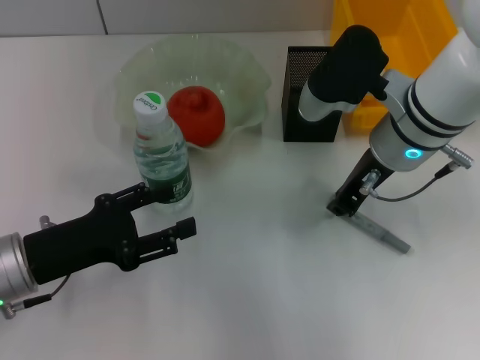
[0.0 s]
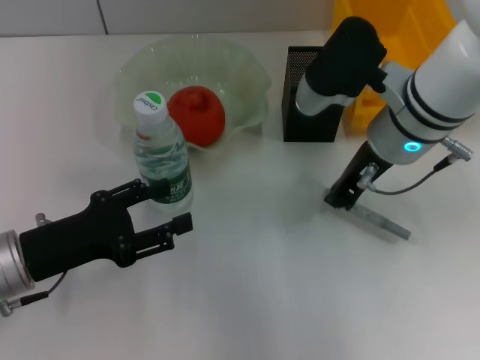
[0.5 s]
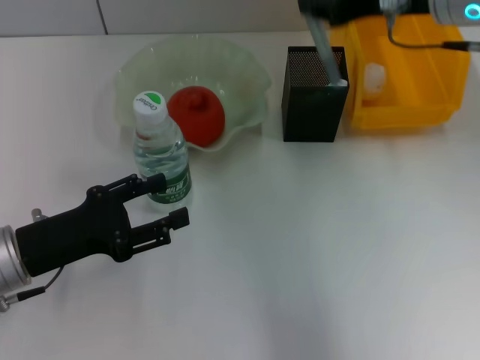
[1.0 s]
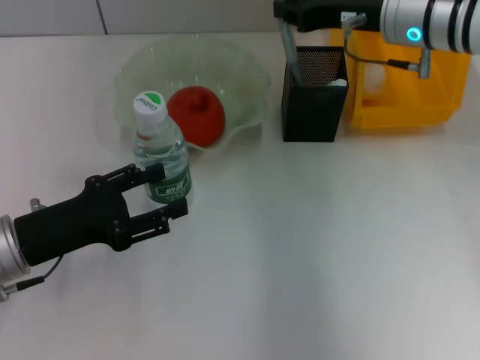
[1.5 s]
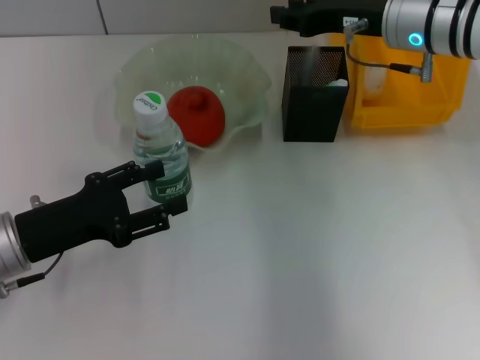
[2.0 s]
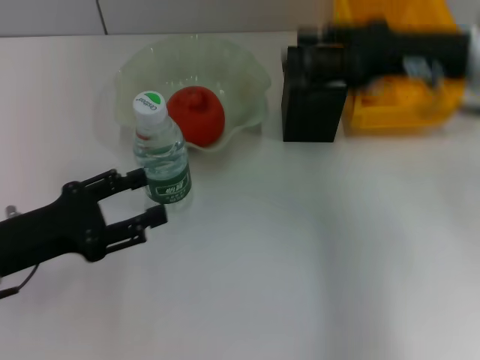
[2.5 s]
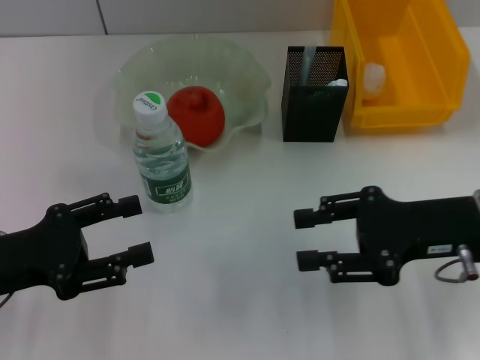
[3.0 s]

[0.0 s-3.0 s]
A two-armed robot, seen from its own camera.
Step, 0.5 to 2.0 s: Place the gray glue into the pen holder with the right hand.
0.0 to 1.5 s: The right gripper heads forward, covering some 5 cm, and travels upward and back again, some 10 cm each way.
1.5 to 3.0 s: The right gripper travels backward by approximately 15 cm, and opens.

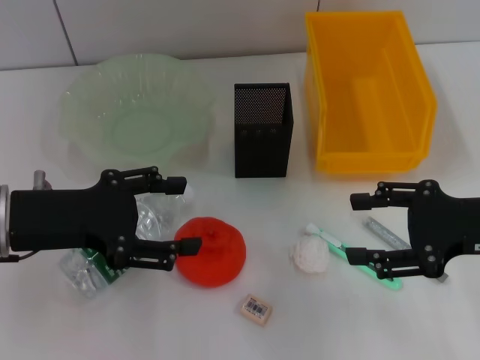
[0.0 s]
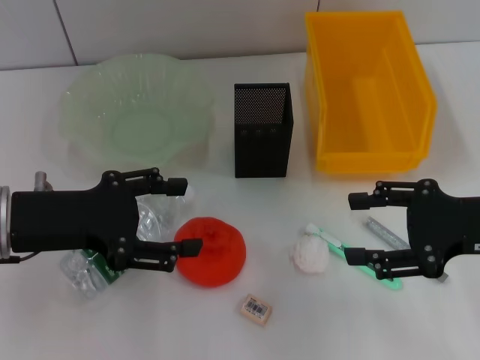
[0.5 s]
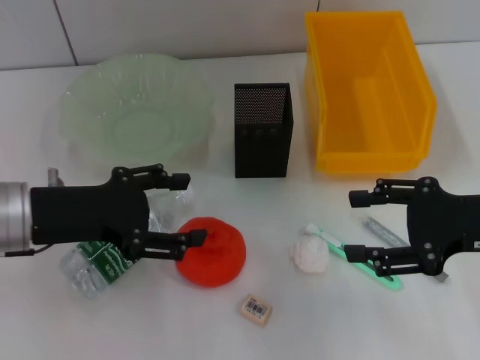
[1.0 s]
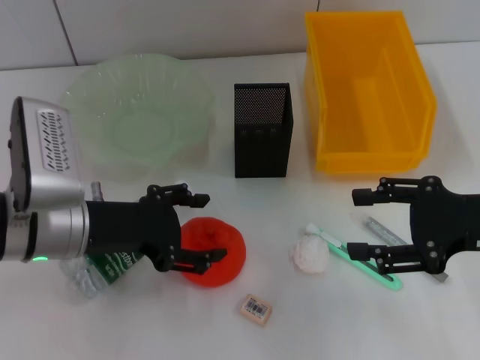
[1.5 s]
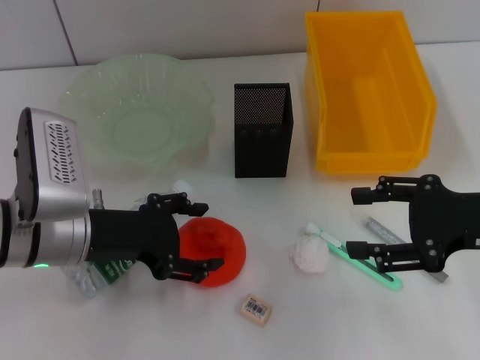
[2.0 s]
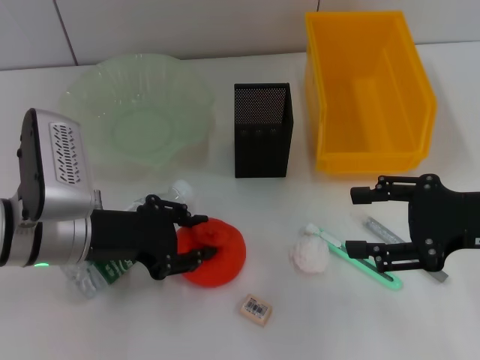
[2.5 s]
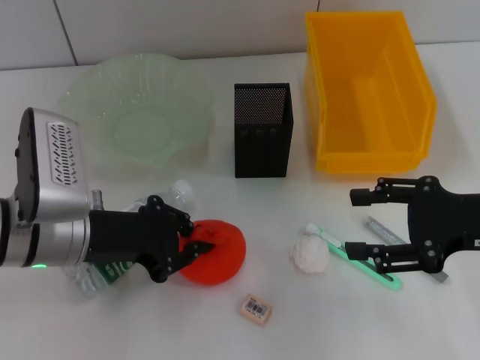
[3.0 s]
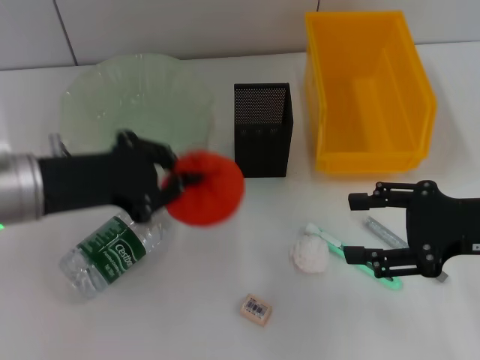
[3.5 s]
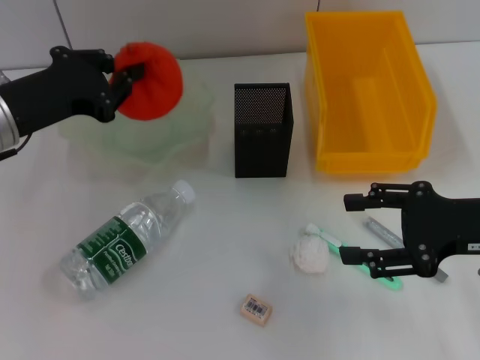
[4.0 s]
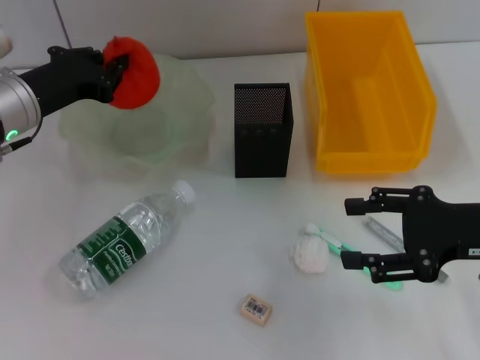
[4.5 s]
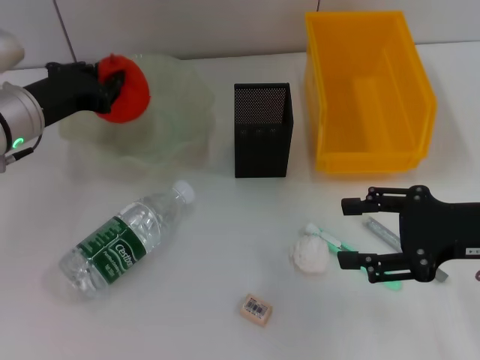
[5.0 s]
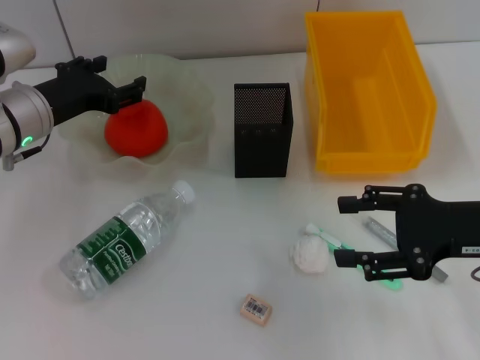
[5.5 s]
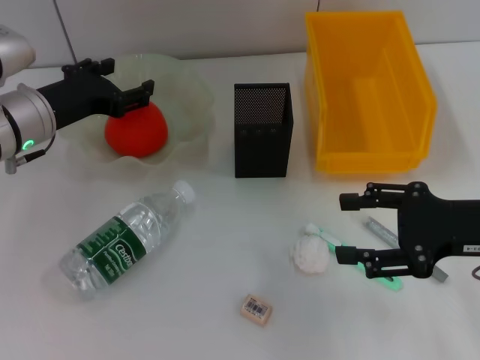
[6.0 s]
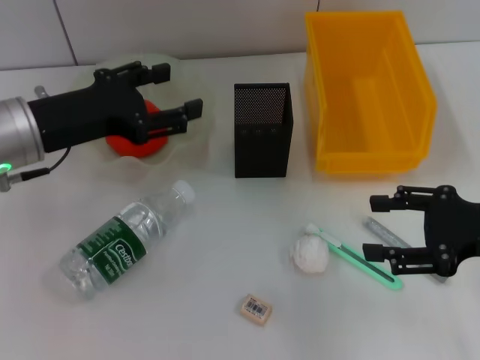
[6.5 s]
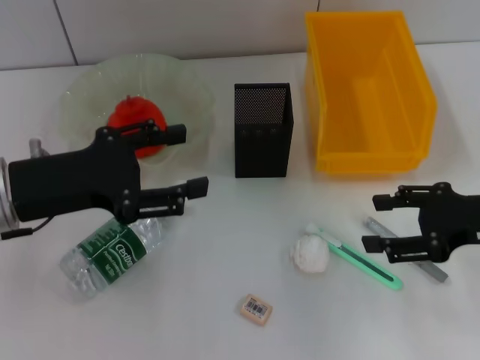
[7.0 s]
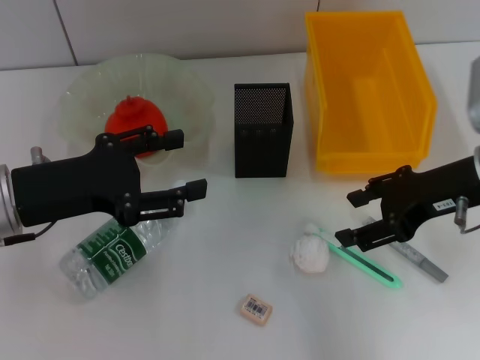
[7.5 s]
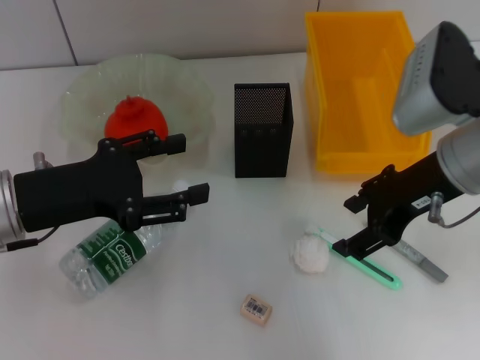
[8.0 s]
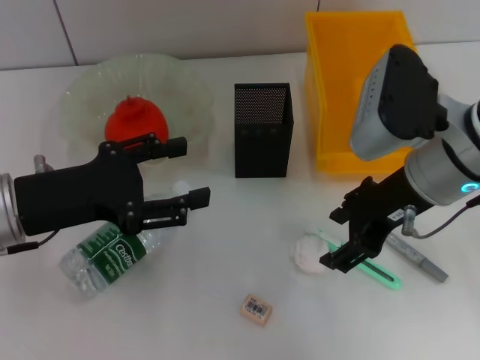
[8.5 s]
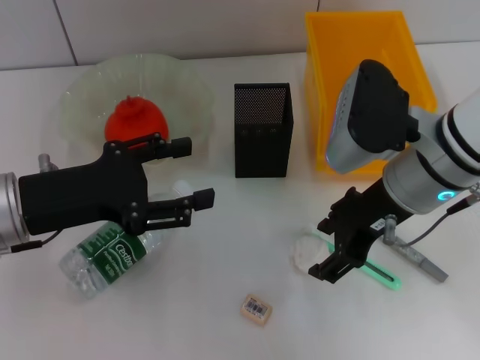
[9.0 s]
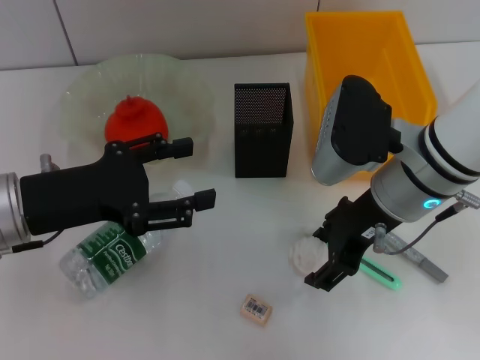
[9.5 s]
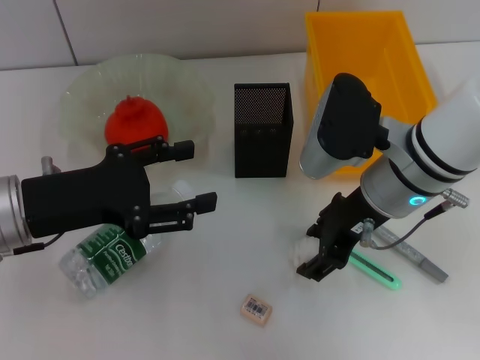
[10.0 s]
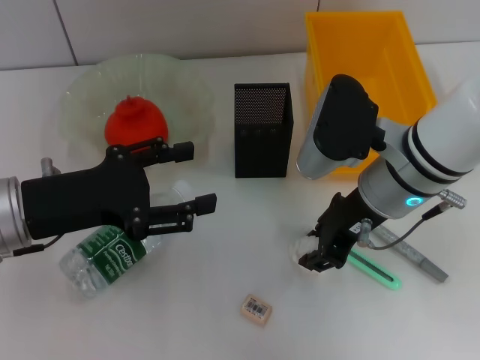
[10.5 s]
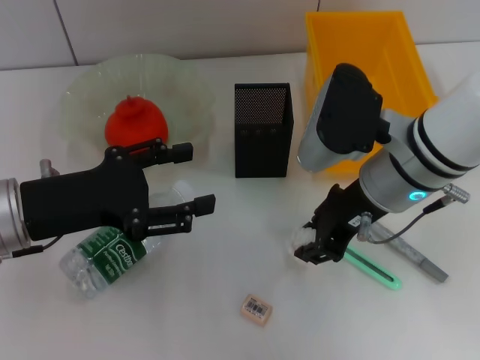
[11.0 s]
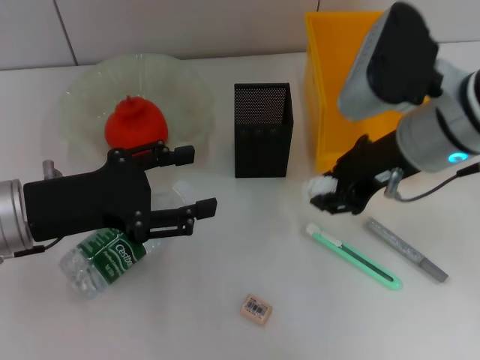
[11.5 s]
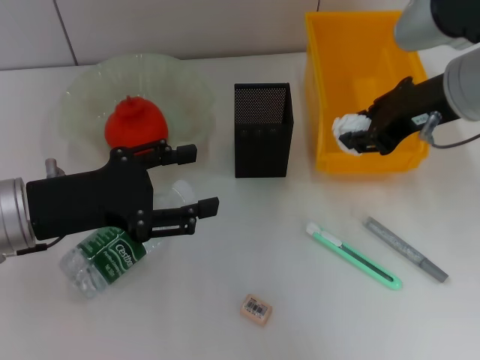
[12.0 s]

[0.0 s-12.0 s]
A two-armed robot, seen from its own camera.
Step, 0.0 to 2.5 s: Grab the orange with the left hand.
Step, 3.0 to 5.0 s: Place the orange into the fruit bowl with the left hand.
Step, 6.0 to 11.0 s: Grab the paper ball with the right hand.
0.0 to 2.0 s: The left gripper moves some 5 cm.
2.0 to 4.0 s: The left gripper moves upward, approximately 5 cm, and closes.
4.0 to 6.0 s: The left gripper ends up about 5 cm from where it was, and opens up.
6.0 to 8.0 s: The left gripper moves backward, approximately 10 cm, while the right gripper is displaced to the left, forward and upward by roughly 10 cm.
8.0 to 10.0 s: The right gripper is displaced to the left by approximately 5 cm.
10.0 to 12.0 s: The right gripper is displaced upward and to the right by roughly 10 cm, and closes up.

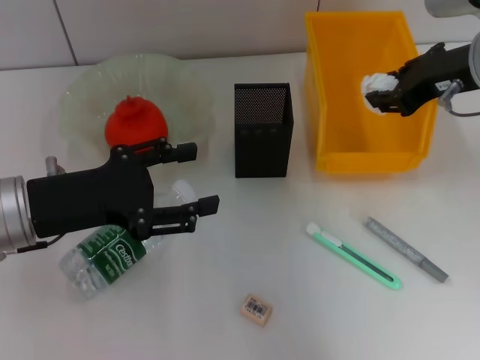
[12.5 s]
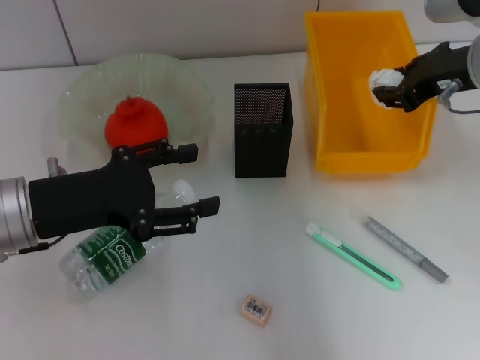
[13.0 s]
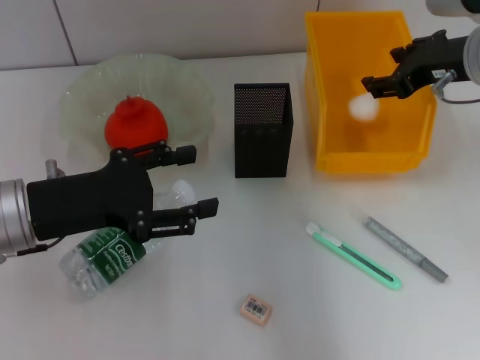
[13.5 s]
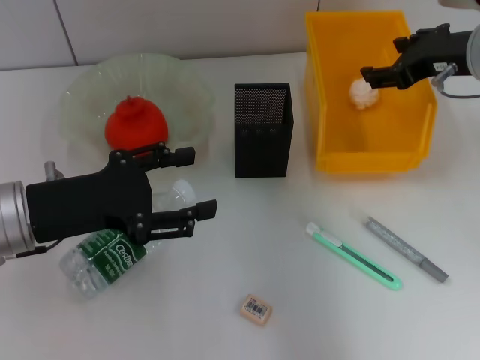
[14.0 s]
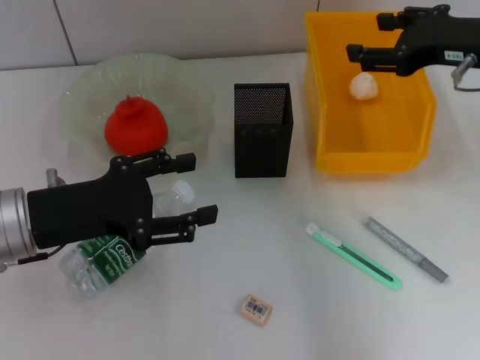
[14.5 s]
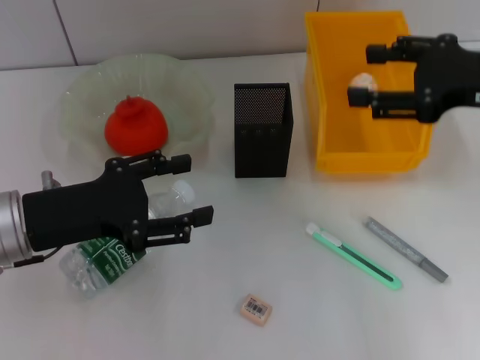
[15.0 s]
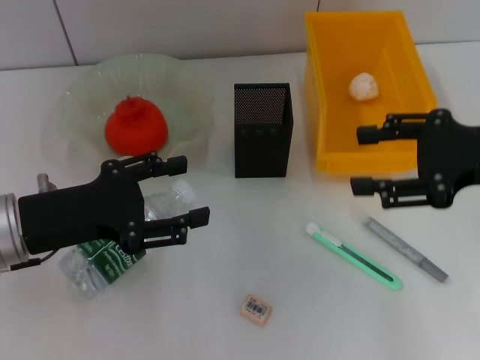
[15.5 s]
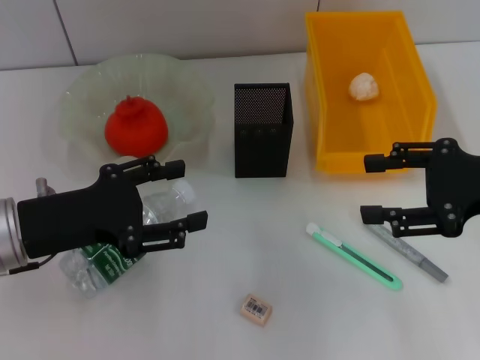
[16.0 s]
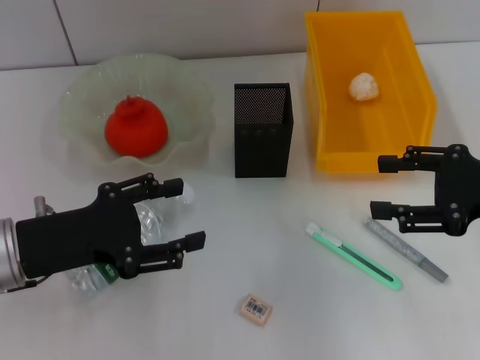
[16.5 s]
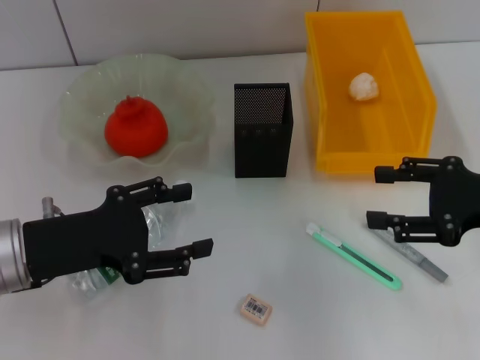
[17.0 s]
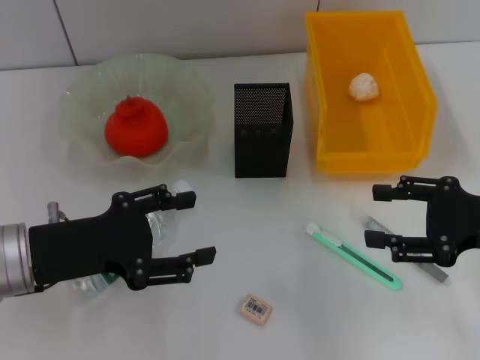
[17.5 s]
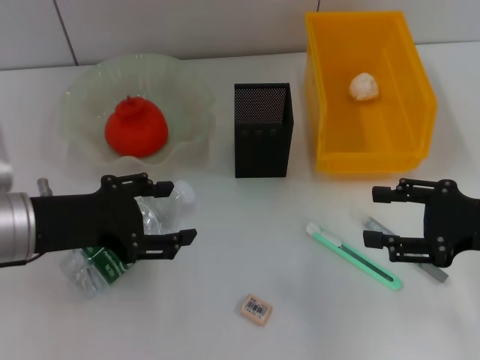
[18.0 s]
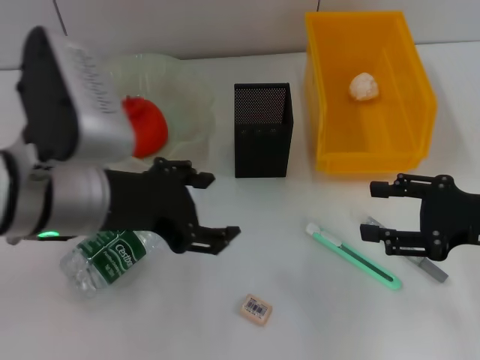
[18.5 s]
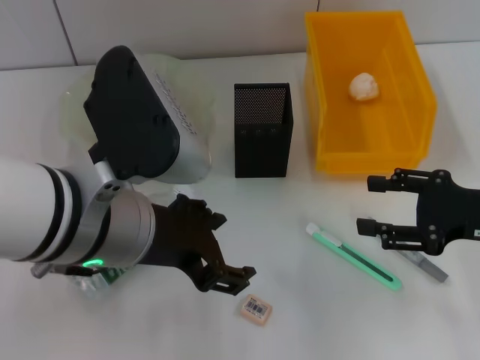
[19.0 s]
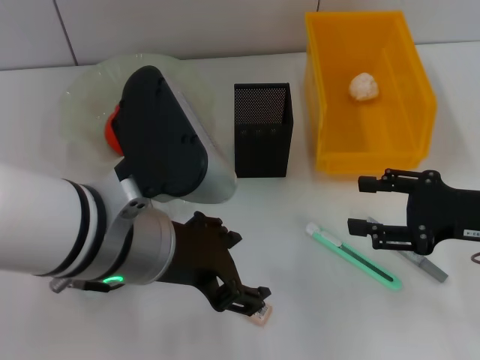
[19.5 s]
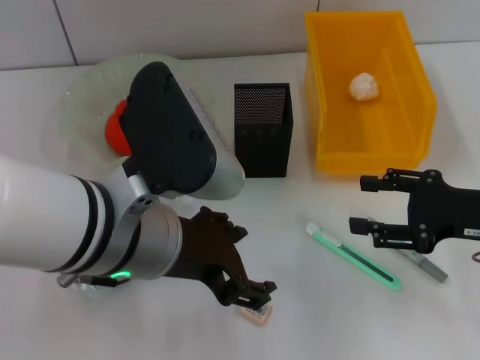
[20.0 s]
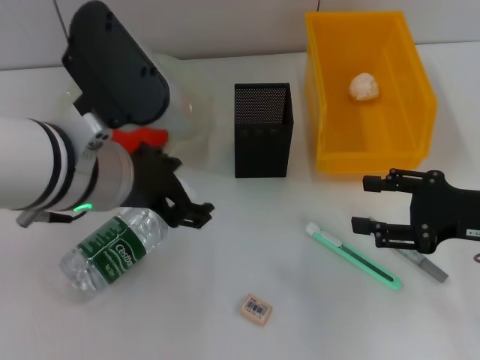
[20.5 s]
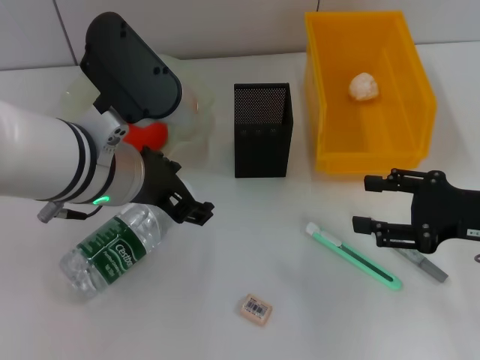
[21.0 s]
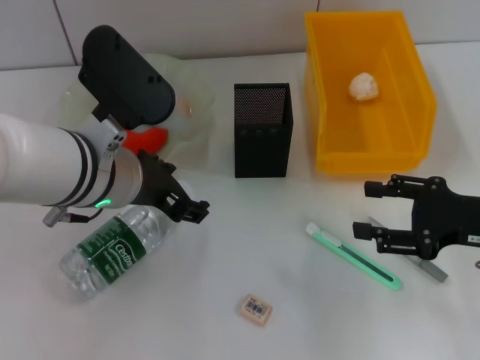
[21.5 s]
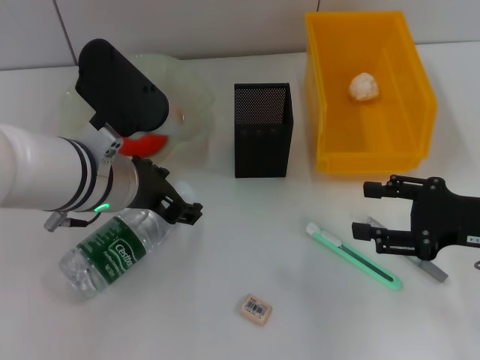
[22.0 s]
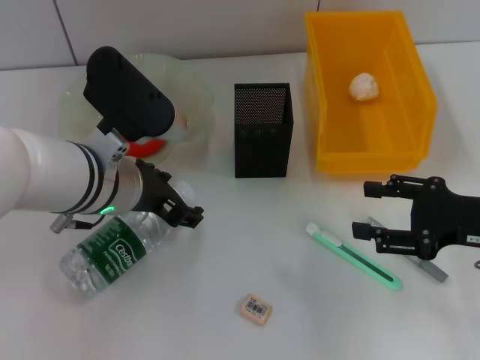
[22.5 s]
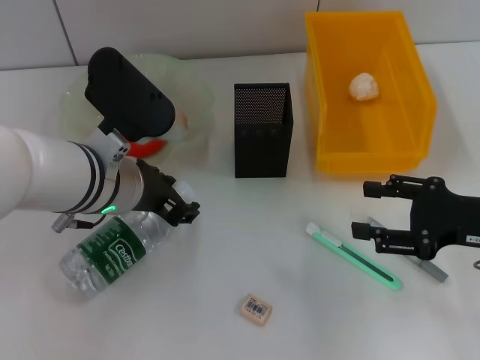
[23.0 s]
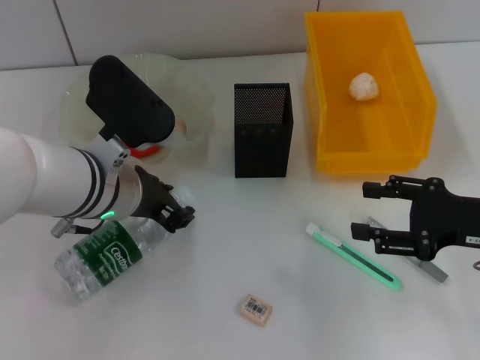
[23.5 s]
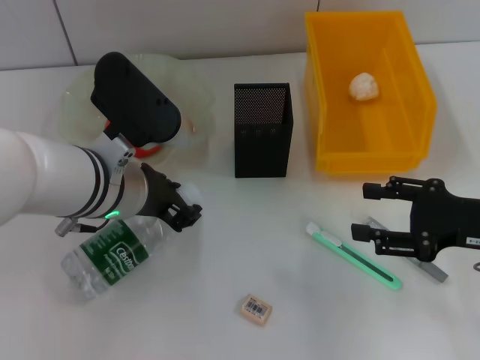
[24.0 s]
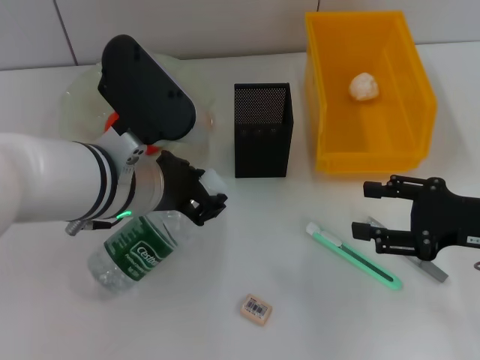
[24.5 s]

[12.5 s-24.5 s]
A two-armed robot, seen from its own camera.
Step, 14.5 to 24.0 s: Grab the water bottle with the left hand.
12.5 to 14.5 s: The right gripper opens.
14.5 to 16.5 s: The right gripper shifts some 10 cm backward and downward.
16.5 to 18.5 s: The left gripper goes roughly 10 cm to the right and upward.
20.5 to 22.5 s: The left gripper is displaced downward by approximately 5 cm.
22.5 to 24.5 s: The left gripper closes.
